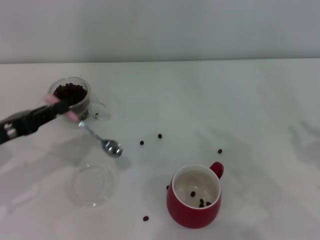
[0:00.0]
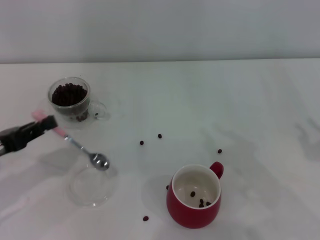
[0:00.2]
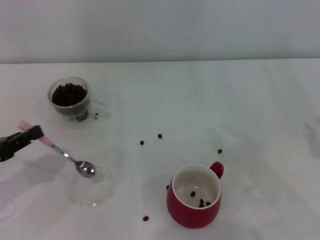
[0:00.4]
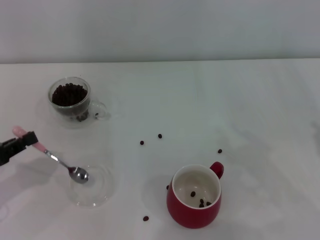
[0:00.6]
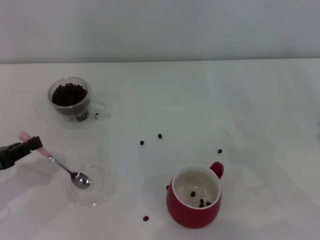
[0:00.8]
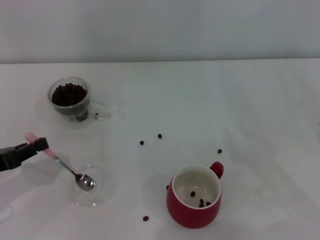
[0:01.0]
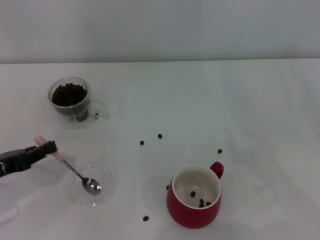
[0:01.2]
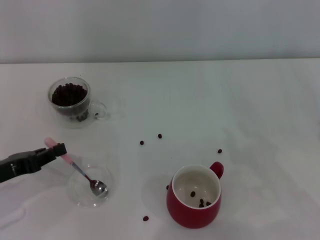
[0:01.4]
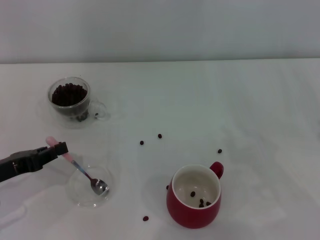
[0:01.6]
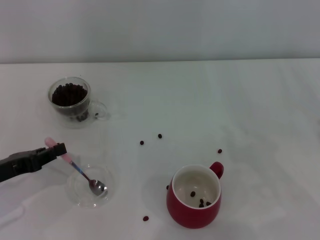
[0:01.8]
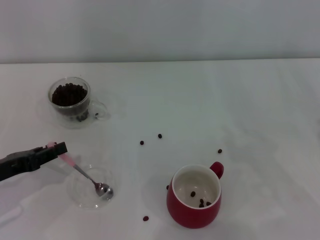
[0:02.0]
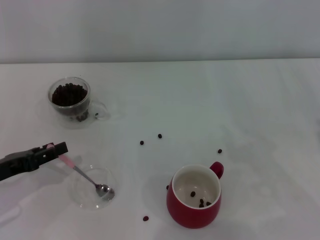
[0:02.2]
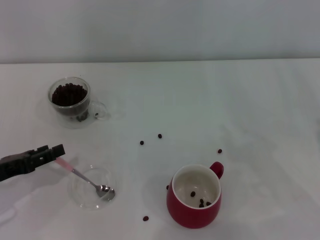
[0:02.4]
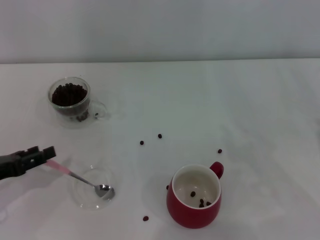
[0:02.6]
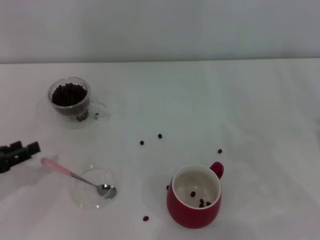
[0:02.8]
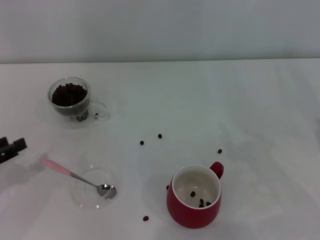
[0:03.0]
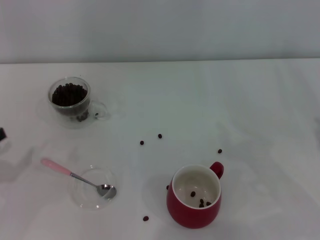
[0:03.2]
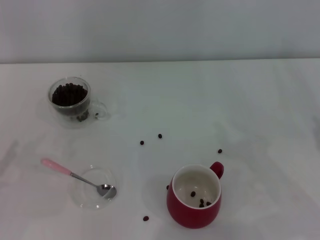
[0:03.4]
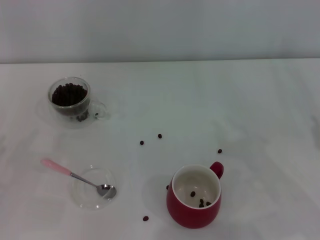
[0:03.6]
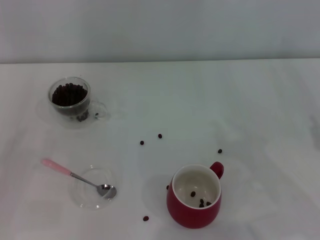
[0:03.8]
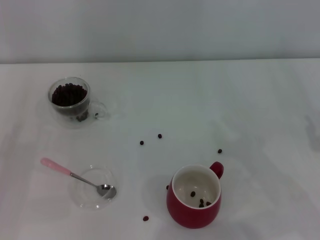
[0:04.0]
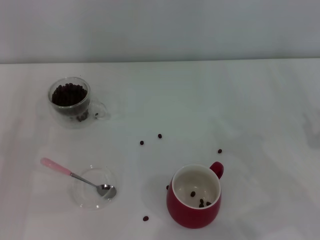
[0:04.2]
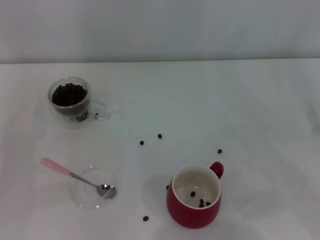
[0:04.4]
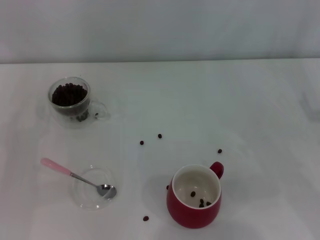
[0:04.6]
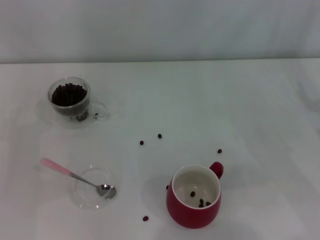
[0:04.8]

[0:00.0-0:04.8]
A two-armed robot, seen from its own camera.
Task of the whole recording: Use a pink spoon to take out the coffee beans from the glass and pour them into the red cup.
Step, 0:00.0 to 0:02.8: Place the spoon back in its original place with the right gripper.
0:00.0 to 0:01.6: There are only small adjustments of the grippers.
0:01.6 to 0:03.2: The left gripper shifts some 5 cm to the left, and opens its fingers.
